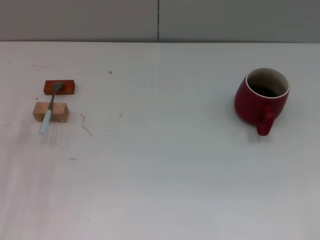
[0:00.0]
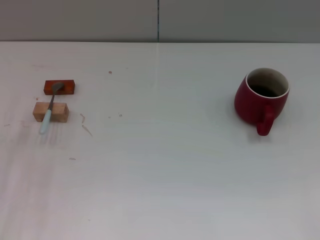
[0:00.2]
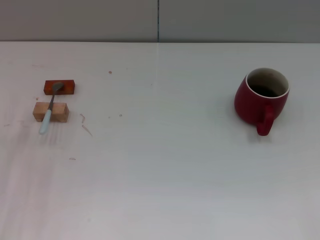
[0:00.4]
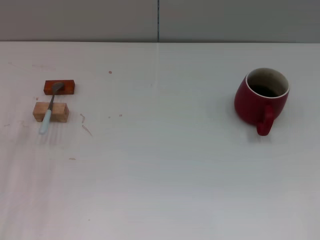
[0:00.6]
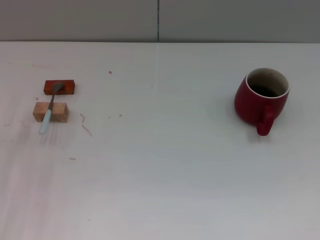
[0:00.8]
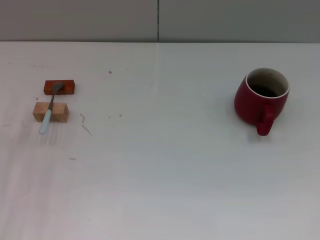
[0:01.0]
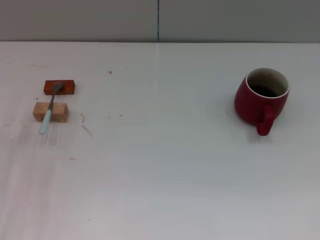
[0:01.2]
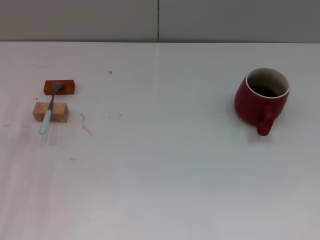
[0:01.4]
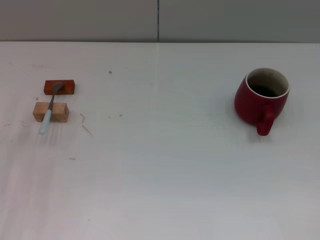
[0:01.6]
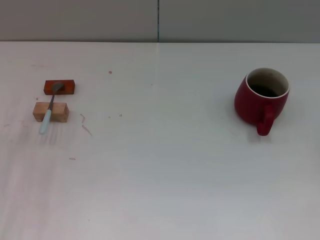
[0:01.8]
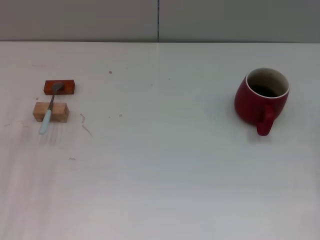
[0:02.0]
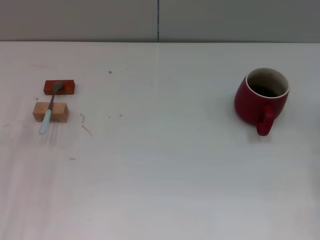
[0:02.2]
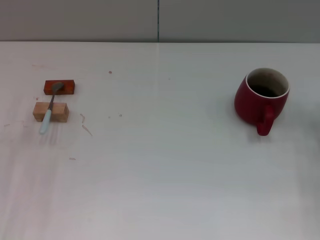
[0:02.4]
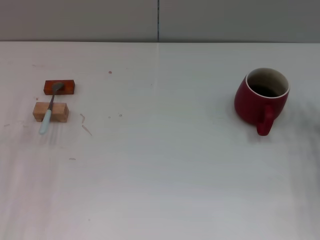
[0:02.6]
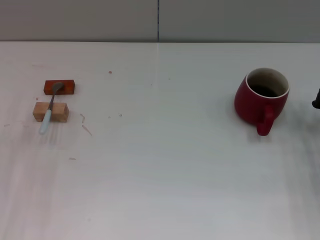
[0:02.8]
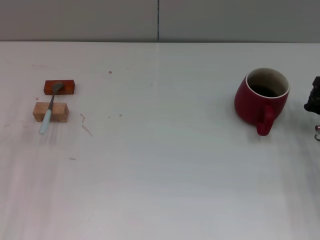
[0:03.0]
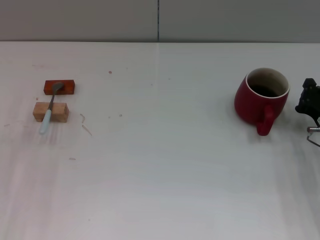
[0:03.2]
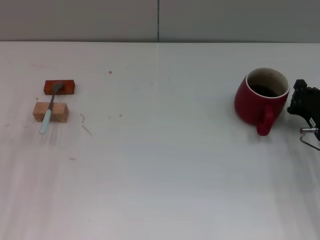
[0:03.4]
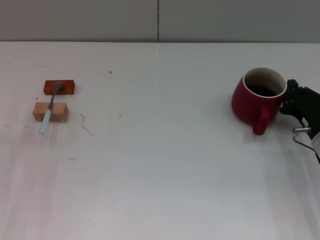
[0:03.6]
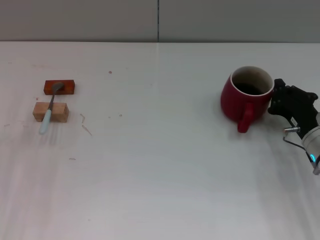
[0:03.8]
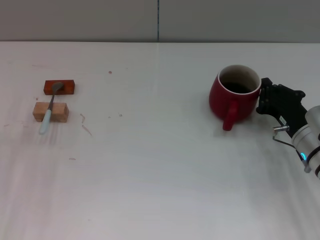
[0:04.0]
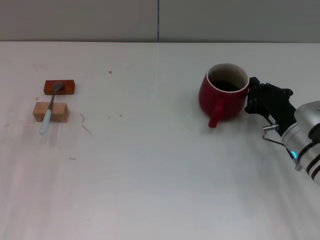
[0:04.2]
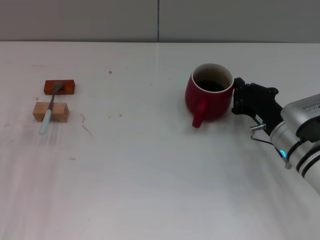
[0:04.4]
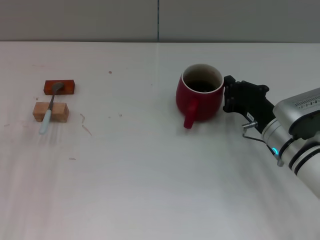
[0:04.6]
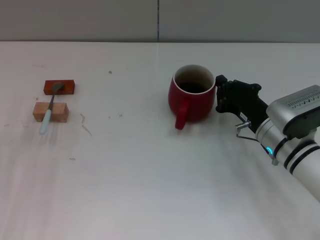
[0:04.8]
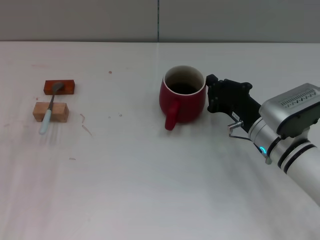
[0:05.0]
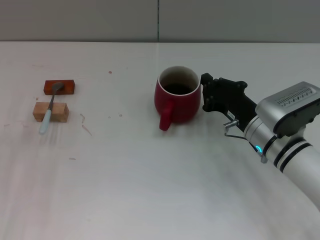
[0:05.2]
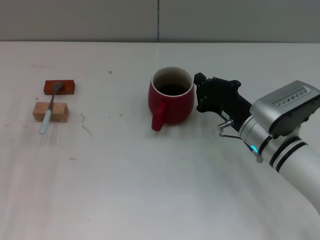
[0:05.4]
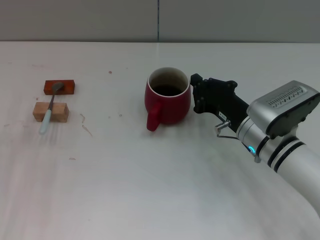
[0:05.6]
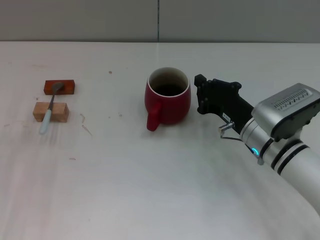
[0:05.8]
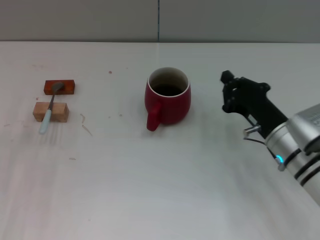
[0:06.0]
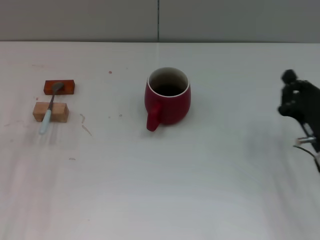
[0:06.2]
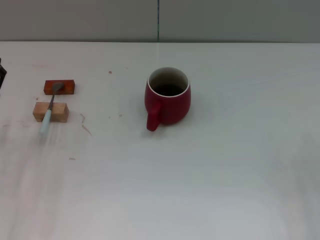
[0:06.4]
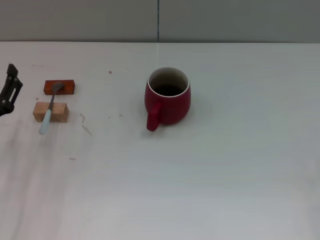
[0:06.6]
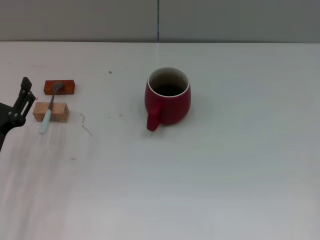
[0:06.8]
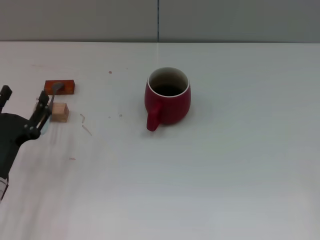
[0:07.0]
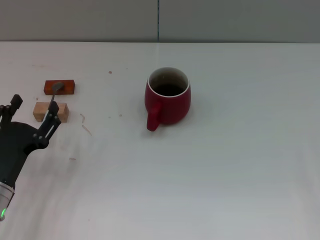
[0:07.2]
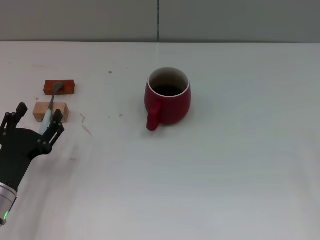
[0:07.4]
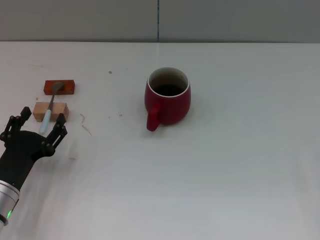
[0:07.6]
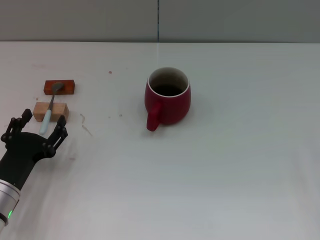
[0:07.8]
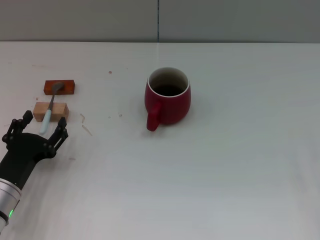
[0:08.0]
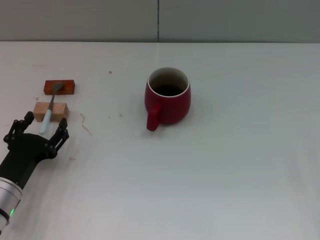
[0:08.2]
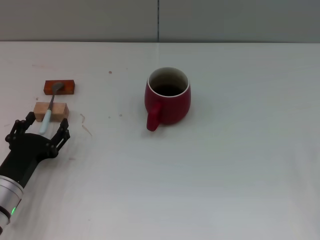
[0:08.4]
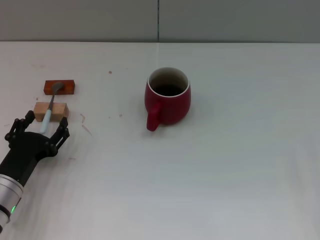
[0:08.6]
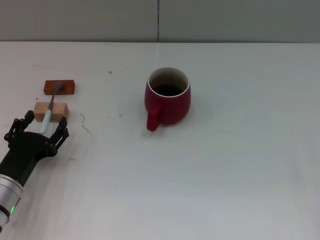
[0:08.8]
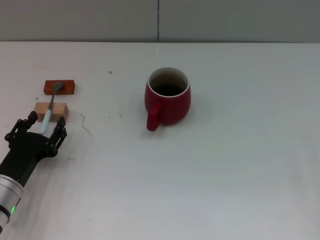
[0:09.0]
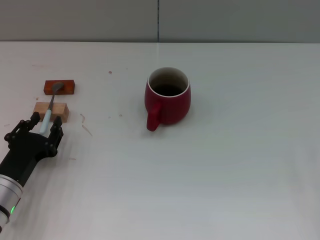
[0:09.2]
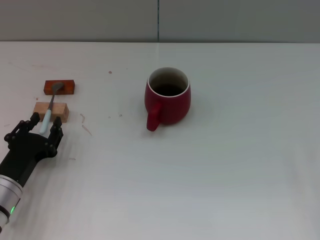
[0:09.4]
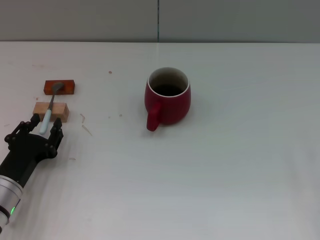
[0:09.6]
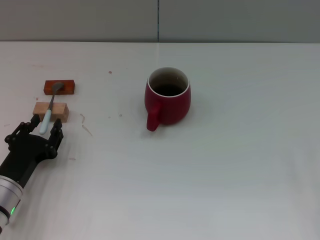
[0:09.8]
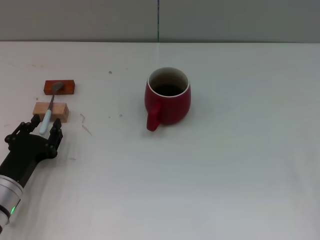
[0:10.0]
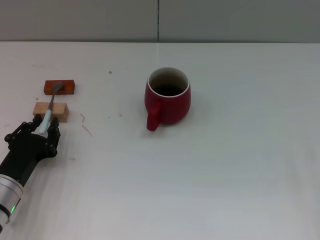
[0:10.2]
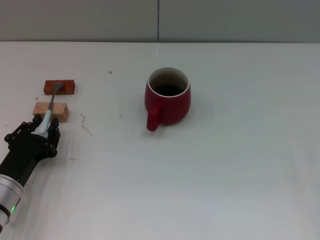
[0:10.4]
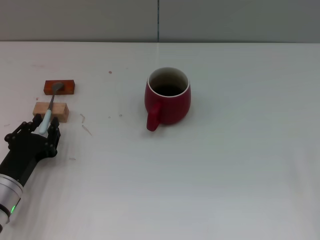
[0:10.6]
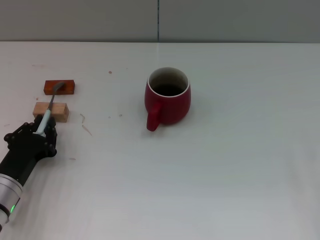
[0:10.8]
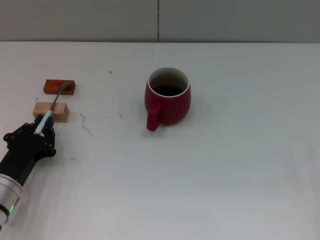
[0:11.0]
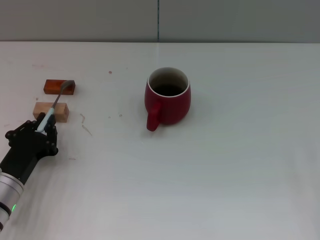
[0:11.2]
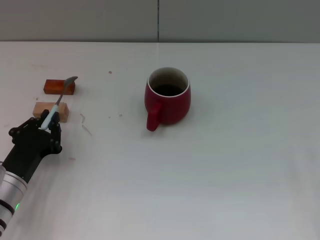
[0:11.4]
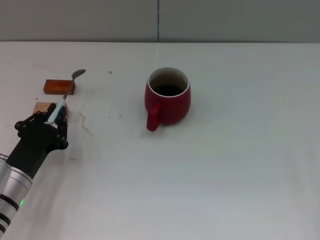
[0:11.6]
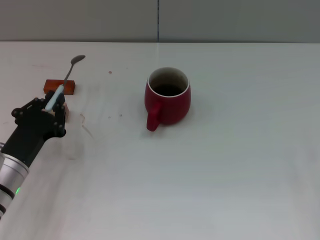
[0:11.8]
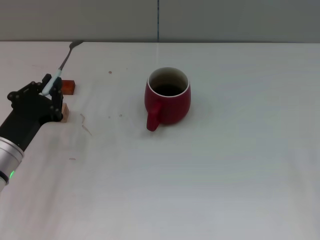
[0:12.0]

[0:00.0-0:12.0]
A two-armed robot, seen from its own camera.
Task of the whole recording: Move the red cup to the center, lift the blue spoon, stir it three times in the cup, and put the spoon into the cup.
Step, 0:00.0 to 0:05.8: Move the cup with coffee to the center of view with the right gripper.
0:01.6 to 0:03.0: The right gripper is displaced to the left and forward by about 10 cm.
0:03.0 to 0:04.4: The right gripper is displaced to the left by some 10 cm.
0:04.4 to 0:06.0: The grippers stay close to where they were, moving slightly.
0:06.0 to 0:07.6: The left gripper moves backward and downward, about 5 cm, while the right gripper heads to the right and backward, covering approximately 20 cm, and opens.
0:07.6 to 0:09.0: The grippers move only a little.
0:09.0 to 0:10.4: The left gripper closes up.
0:10.4 to 0:12.0: The left gripper shifts by approximately 5 cm, and closes up.

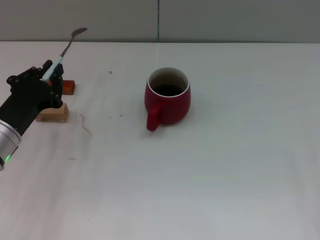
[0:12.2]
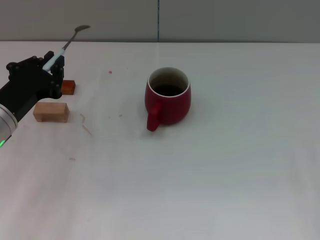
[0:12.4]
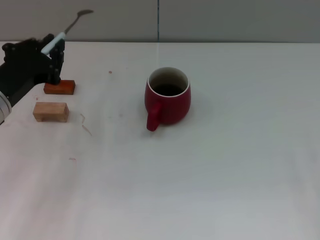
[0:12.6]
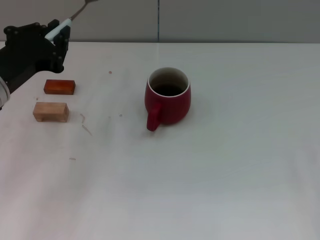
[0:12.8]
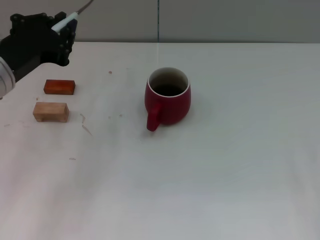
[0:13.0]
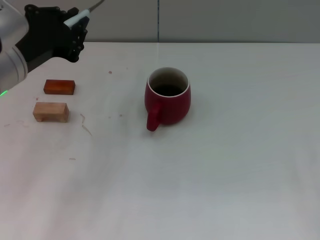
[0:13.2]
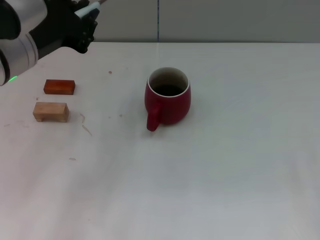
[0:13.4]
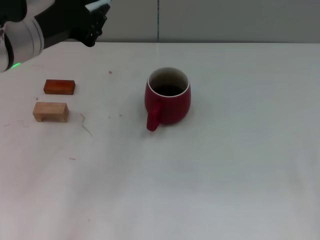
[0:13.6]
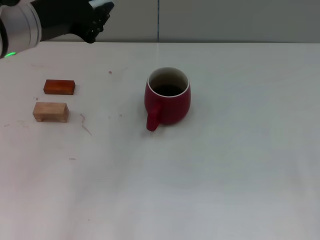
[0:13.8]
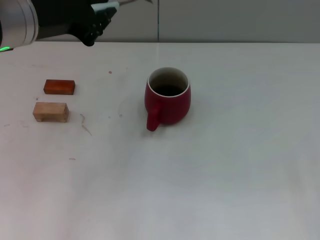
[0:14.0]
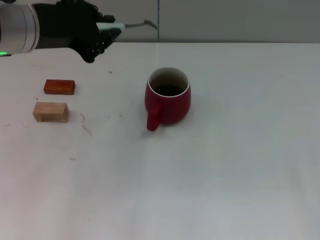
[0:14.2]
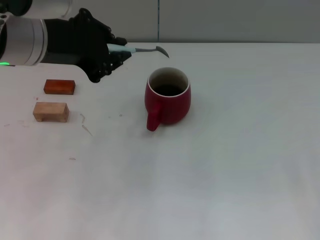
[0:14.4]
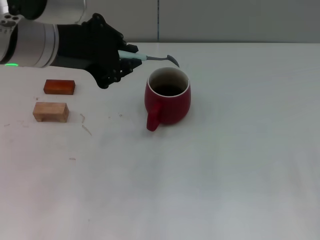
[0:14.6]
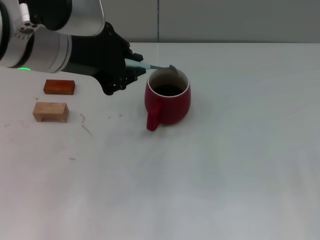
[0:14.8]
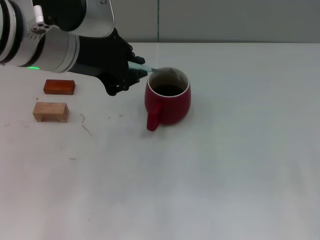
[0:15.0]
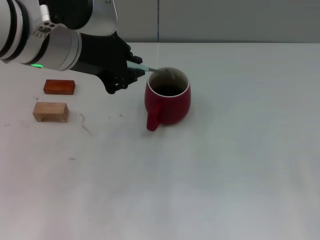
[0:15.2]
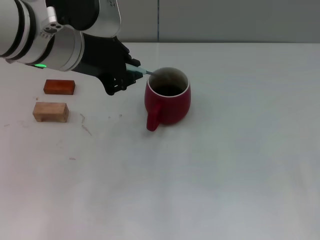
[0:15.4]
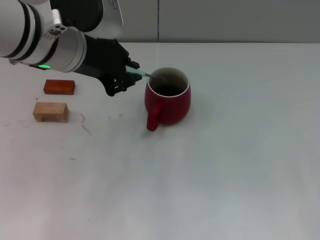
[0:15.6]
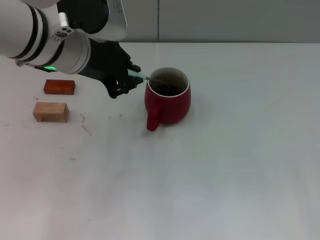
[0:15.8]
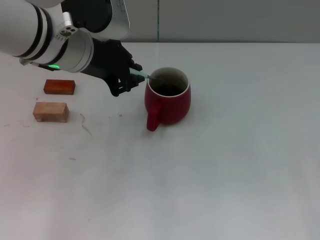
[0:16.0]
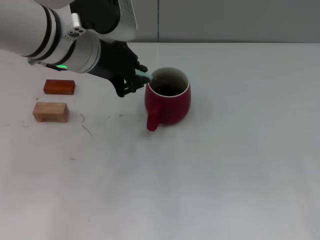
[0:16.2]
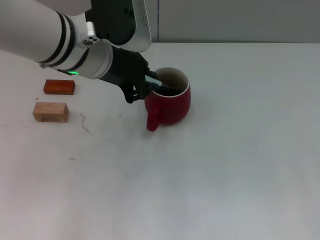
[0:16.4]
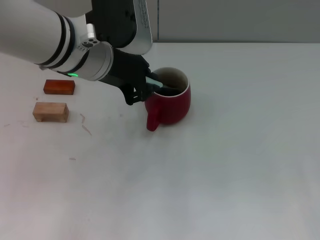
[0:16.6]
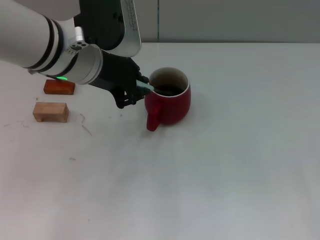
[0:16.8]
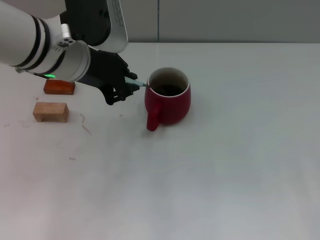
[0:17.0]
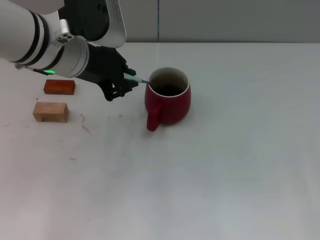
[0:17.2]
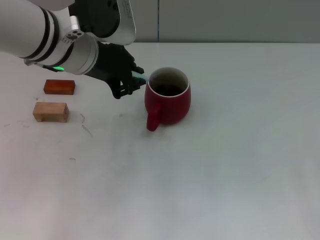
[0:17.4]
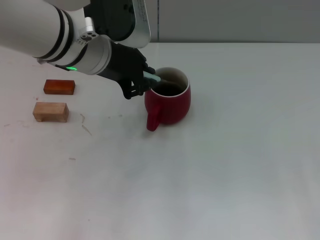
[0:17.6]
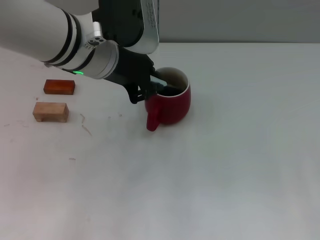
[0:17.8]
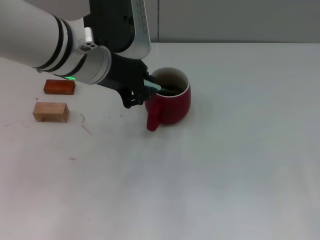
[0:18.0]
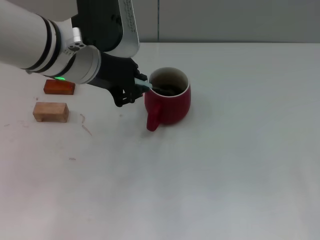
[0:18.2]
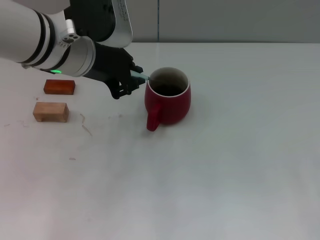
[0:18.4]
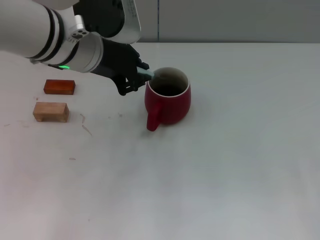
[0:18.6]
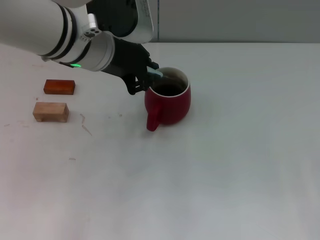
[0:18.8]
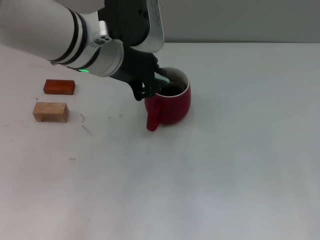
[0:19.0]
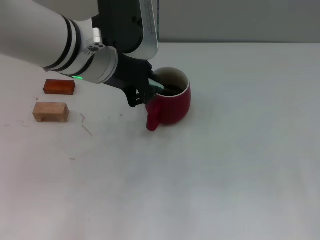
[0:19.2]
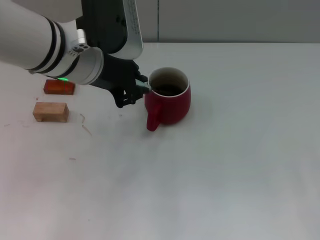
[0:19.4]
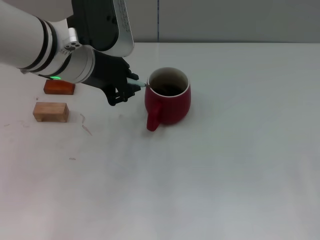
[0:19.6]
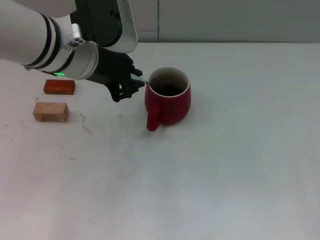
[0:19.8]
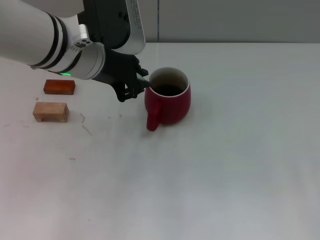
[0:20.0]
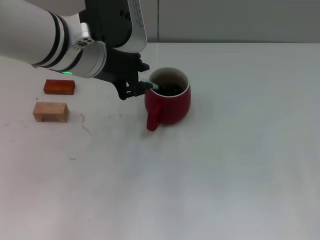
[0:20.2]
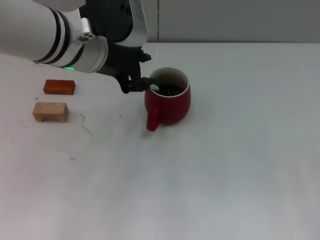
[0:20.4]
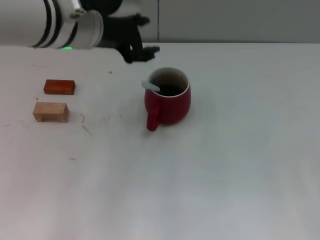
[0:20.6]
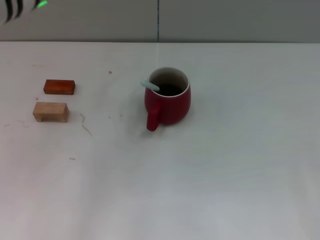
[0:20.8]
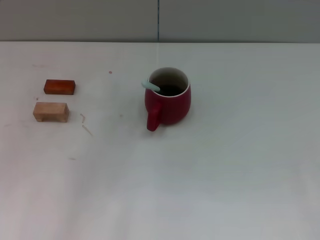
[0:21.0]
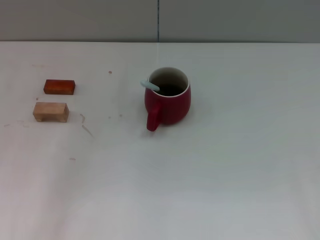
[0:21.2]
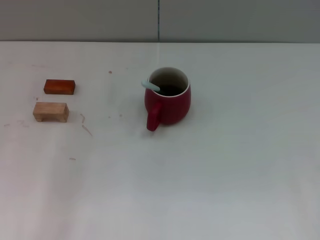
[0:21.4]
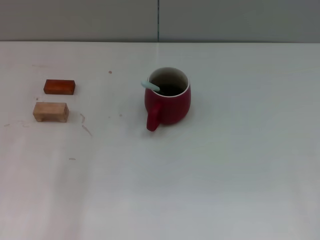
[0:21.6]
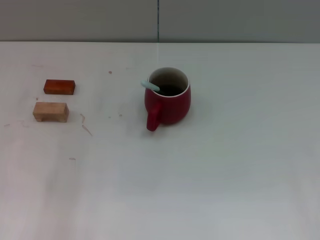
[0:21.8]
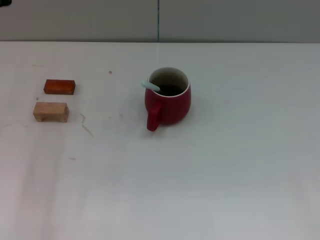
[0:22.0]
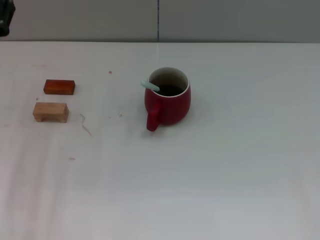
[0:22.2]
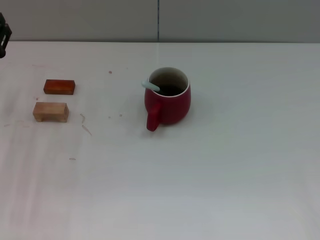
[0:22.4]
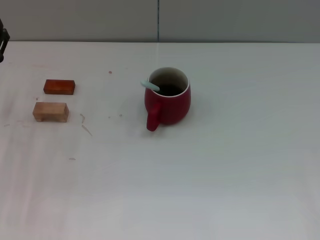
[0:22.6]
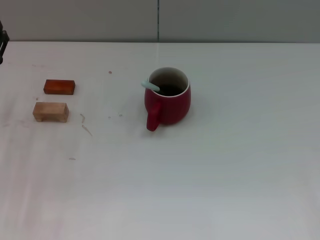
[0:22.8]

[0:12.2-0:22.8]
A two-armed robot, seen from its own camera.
Task of the whole recording: Move the red cup to the center, lift the blue spoon, stir it three times in the cup, and put the spoon into the cup.
Step, 0:12.2 to 0:20.4: Stir the coffee in the cup with the left gripper.
0:12.2 to 0:13.8: The left gripper travels upward by roughly 20 cm.
0:15.2 to 0:19.8: There are only small adjustments of the grippers.
0:19.8 to 0:21.2: The left gripper is displaced to the left by roughly 10 cm, and opens its fingers.
